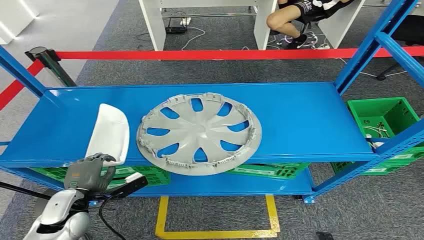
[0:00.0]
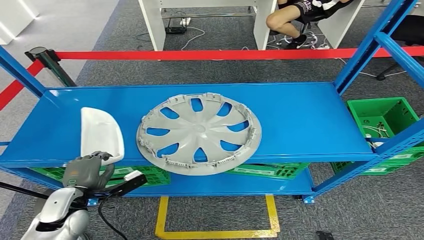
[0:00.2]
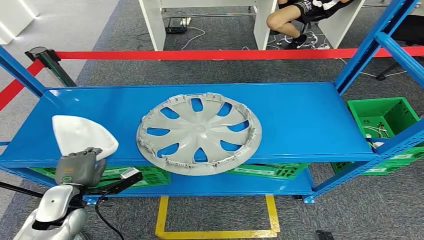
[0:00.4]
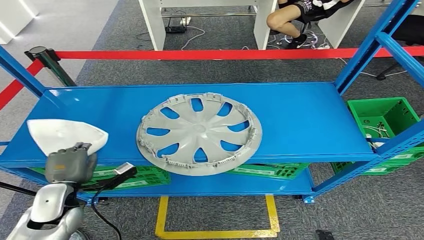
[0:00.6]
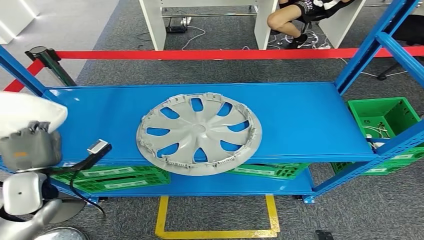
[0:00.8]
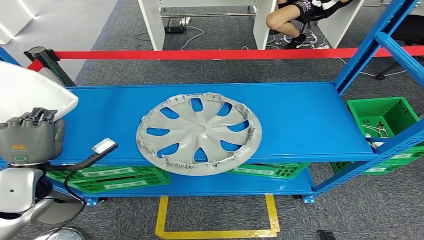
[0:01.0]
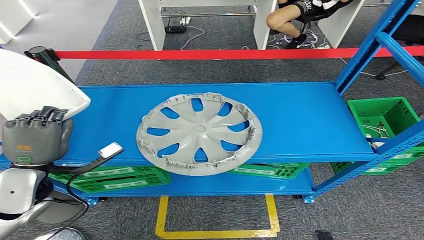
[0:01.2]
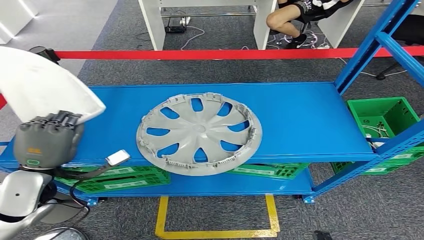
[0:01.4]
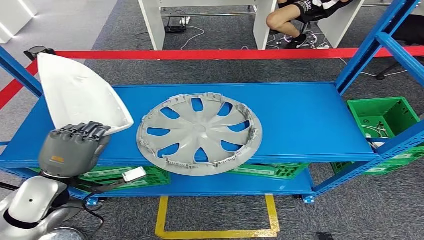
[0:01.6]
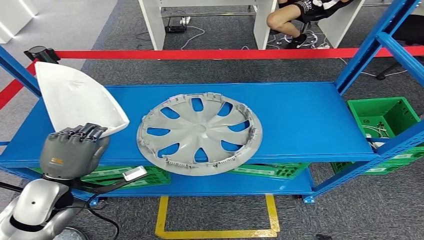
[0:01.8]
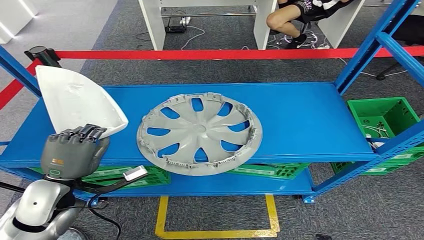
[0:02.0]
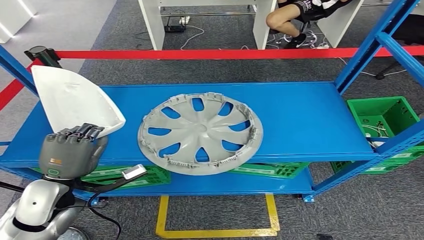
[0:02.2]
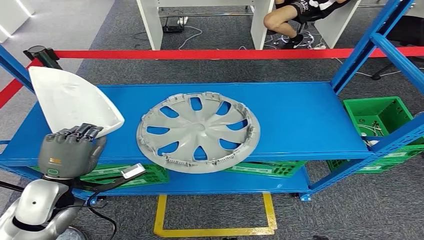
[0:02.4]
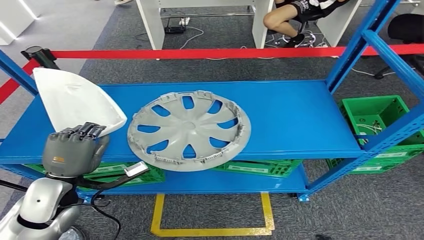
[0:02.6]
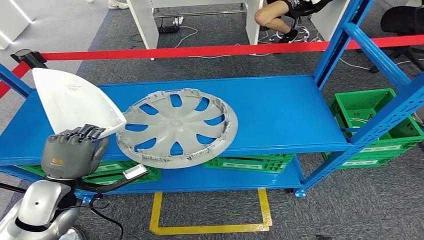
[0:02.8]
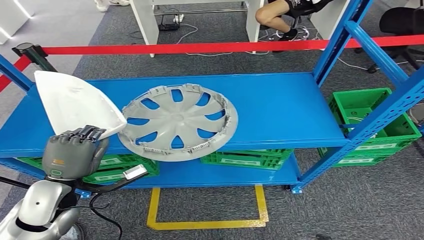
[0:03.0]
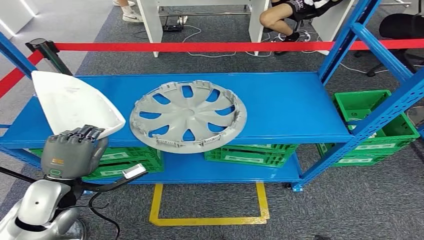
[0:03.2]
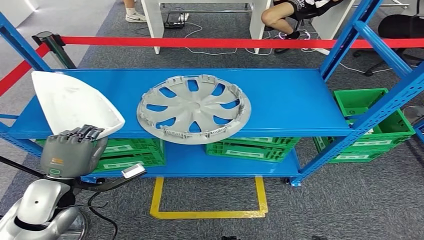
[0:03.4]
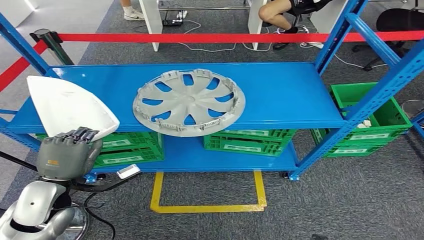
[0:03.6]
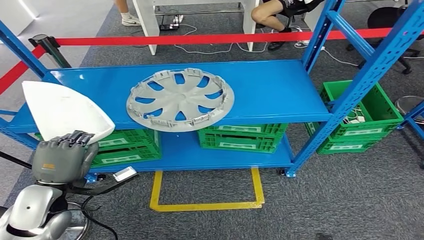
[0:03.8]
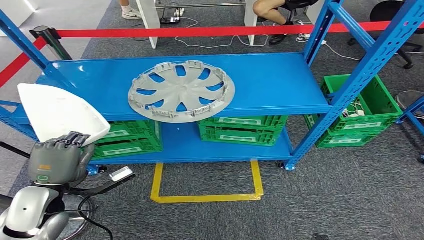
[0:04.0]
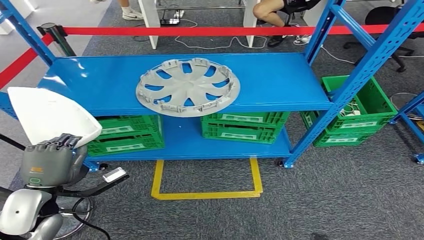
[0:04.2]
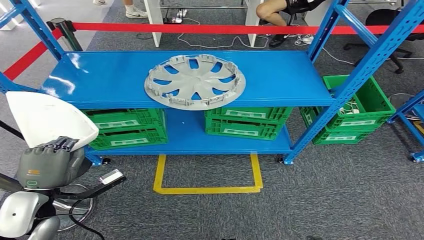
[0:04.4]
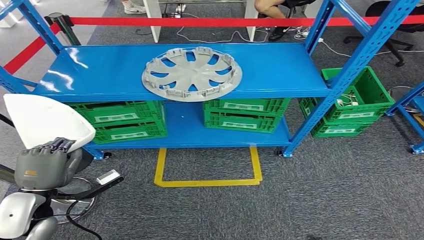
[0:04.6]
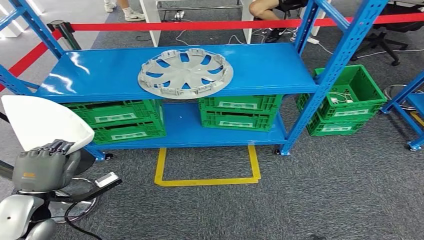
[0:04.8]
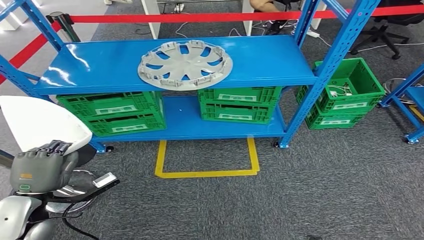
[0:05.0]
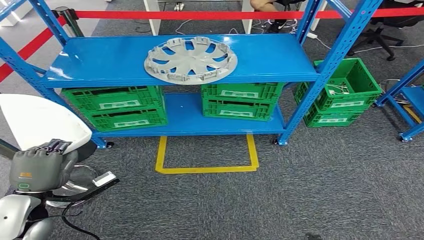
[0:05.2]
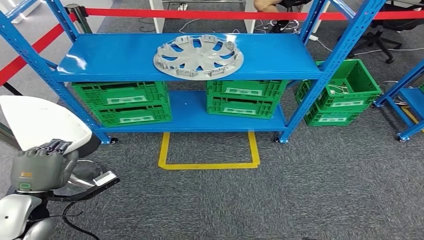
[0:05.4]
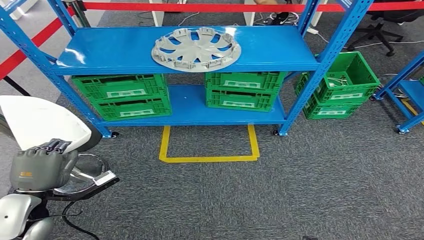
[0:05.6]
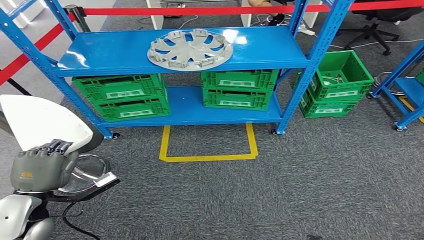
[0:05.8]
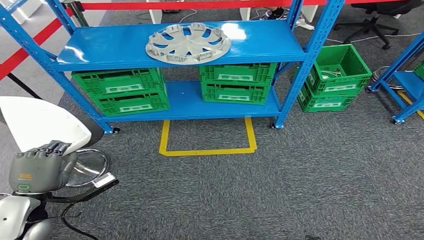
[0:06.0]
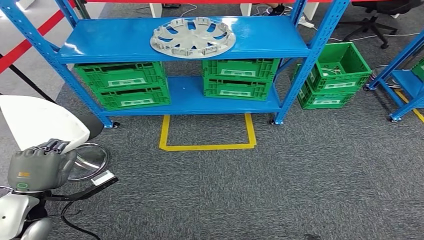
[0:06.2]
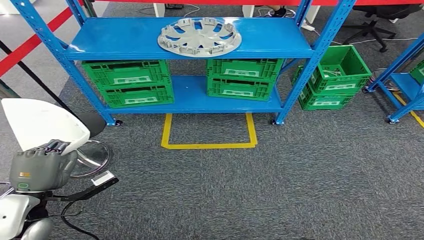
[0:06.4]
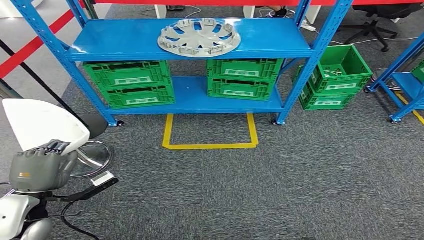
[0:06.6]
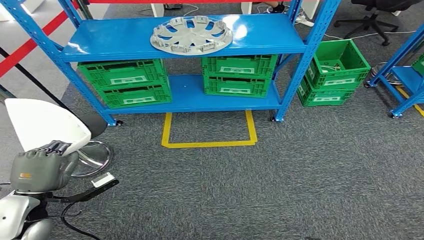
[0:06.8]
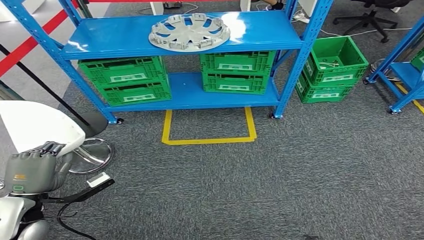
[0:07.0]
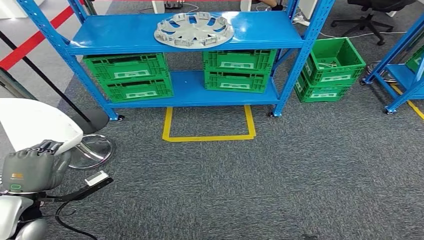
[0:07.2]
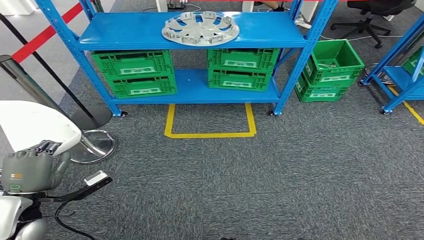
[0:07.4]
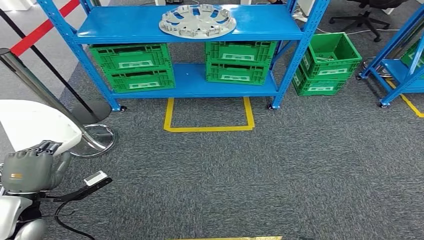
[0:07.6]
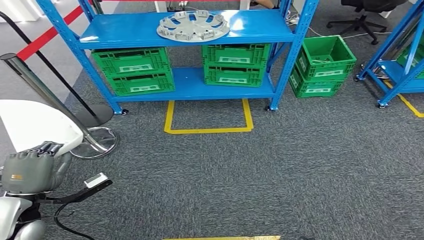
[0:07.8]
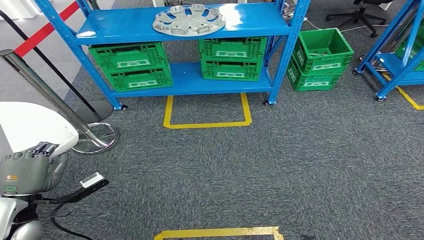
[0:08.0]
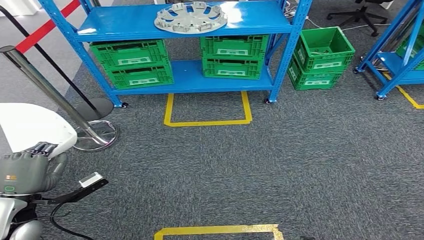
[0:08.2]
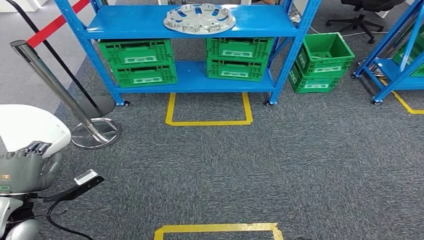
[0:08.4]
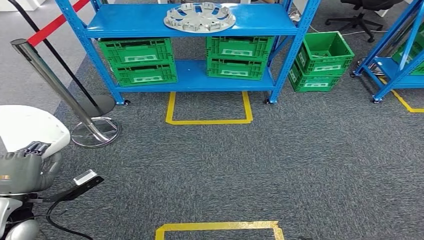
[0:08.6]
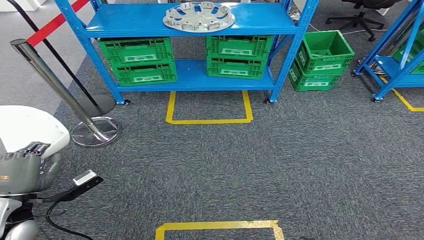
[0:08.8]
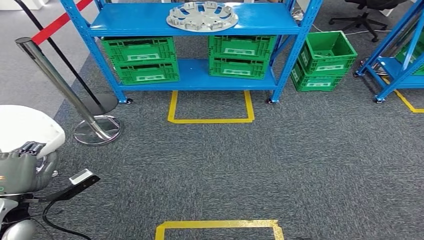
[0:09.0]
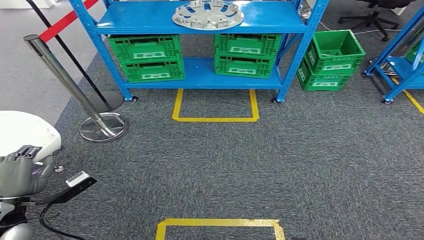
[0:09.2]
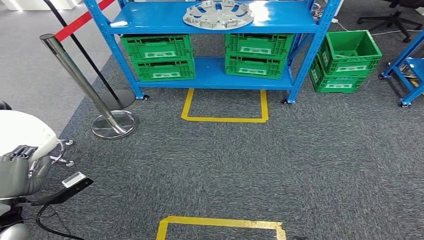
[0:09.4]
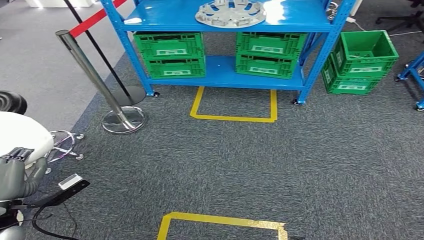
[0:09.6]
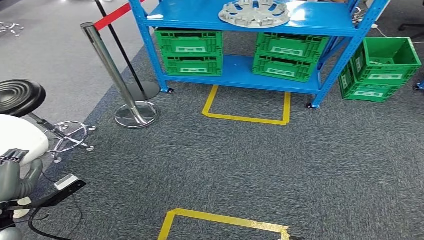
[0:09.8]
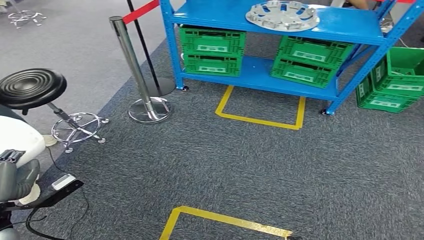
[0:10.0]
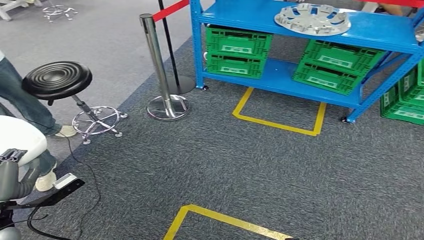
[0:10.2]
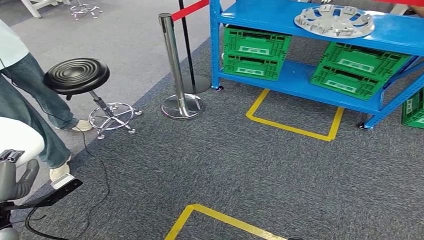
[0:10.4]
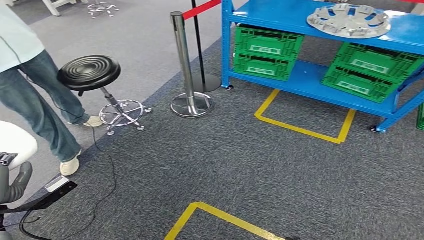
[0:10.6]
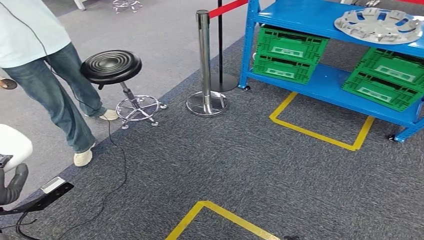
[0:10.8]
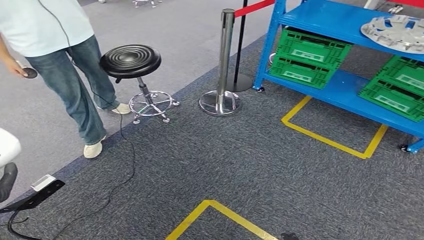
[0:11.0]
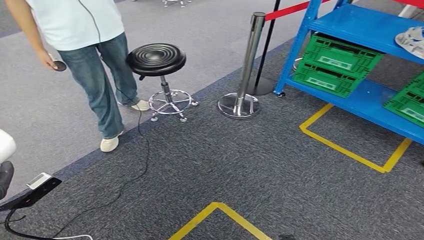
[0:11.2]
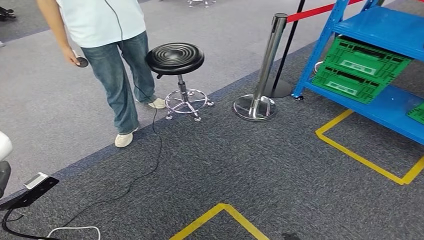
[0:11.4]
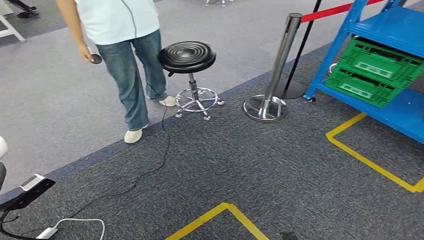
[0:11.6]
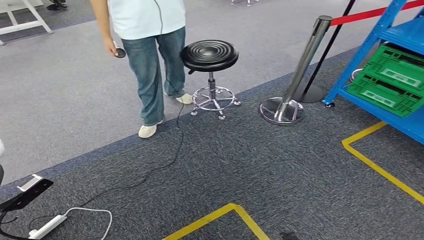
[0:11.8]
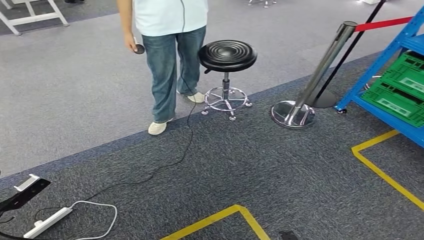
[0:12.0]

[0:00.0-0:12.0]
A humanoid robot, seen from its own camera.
Step, 0:00.0 to 0:03.8: Pick up the small component from the shelf.

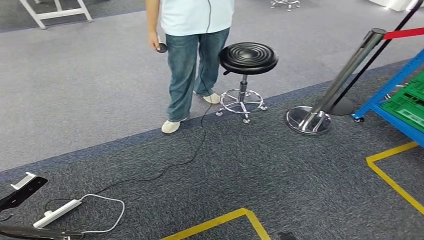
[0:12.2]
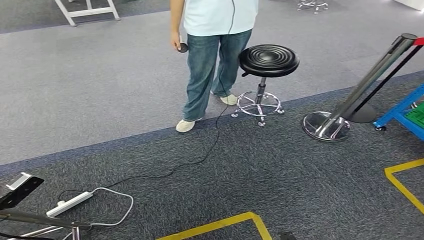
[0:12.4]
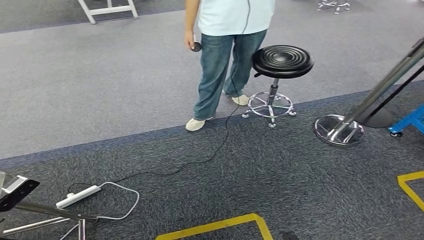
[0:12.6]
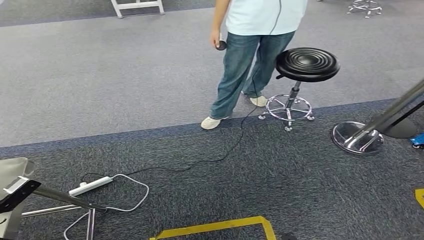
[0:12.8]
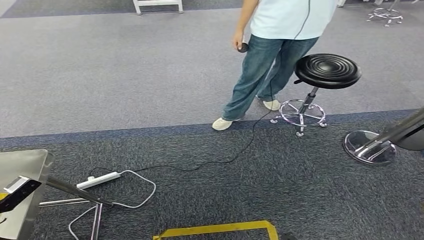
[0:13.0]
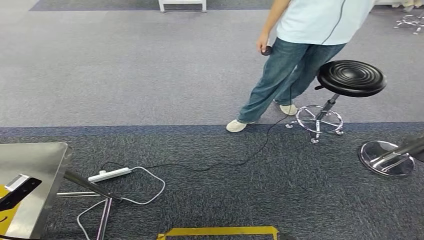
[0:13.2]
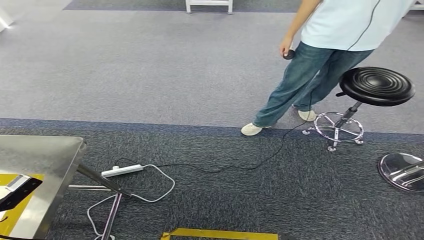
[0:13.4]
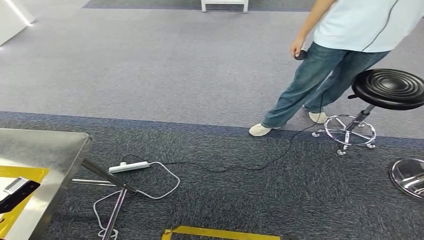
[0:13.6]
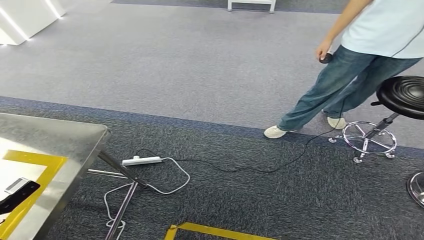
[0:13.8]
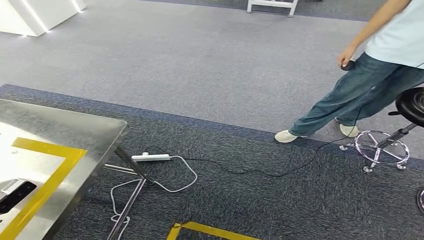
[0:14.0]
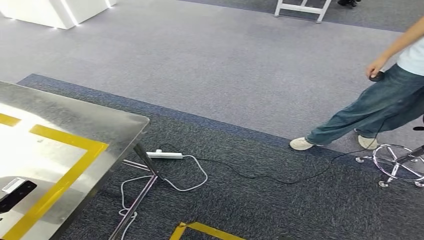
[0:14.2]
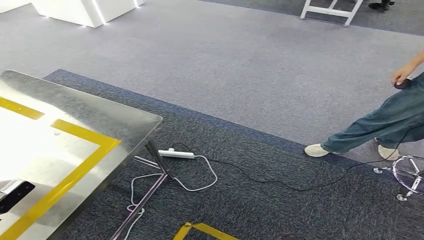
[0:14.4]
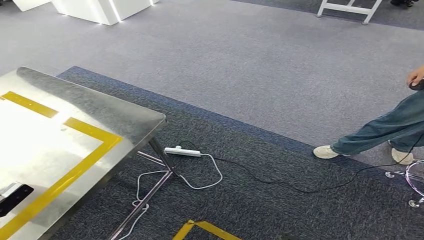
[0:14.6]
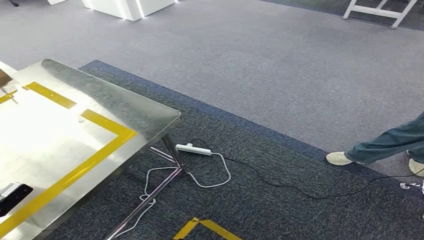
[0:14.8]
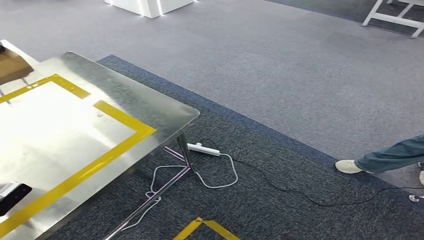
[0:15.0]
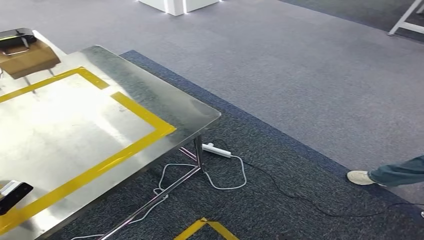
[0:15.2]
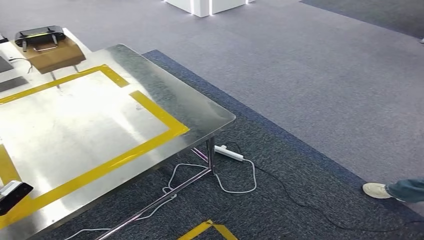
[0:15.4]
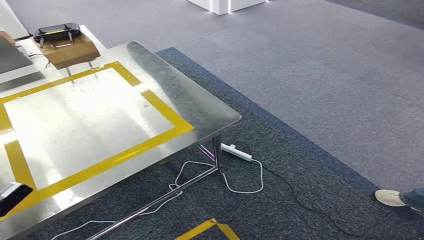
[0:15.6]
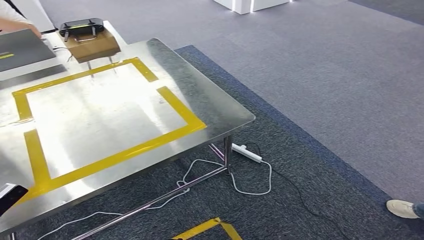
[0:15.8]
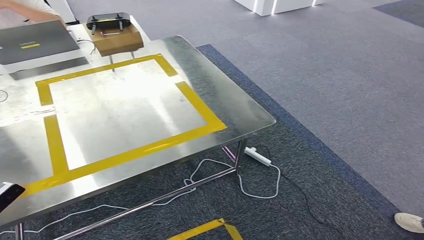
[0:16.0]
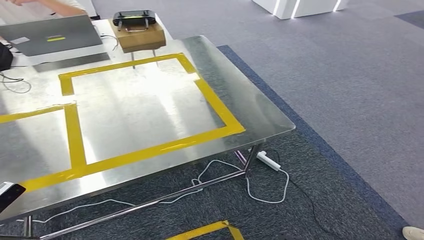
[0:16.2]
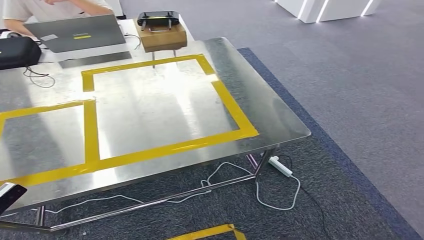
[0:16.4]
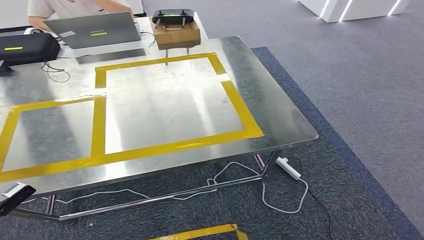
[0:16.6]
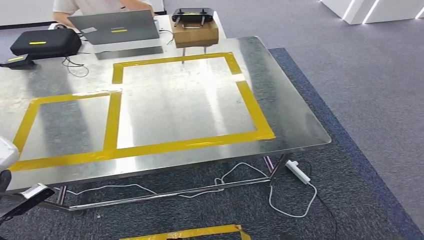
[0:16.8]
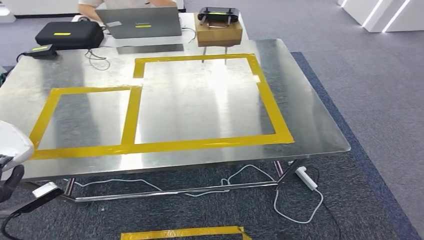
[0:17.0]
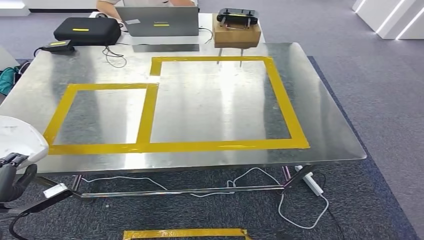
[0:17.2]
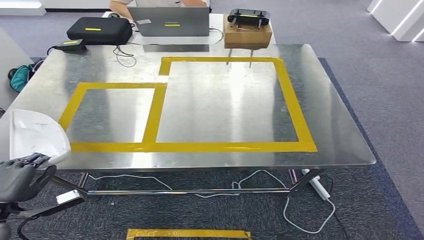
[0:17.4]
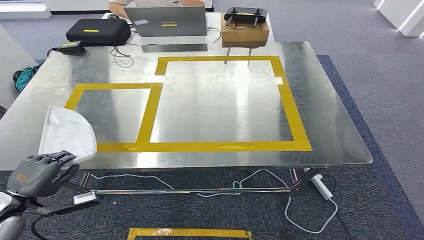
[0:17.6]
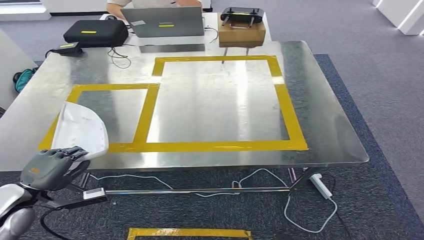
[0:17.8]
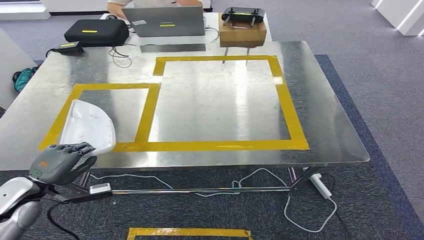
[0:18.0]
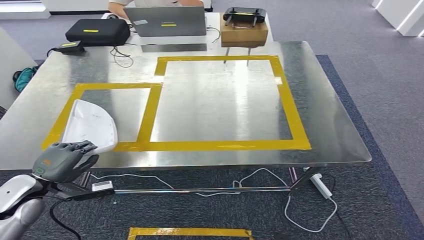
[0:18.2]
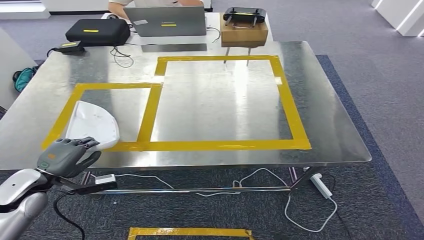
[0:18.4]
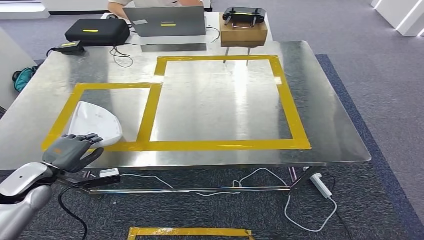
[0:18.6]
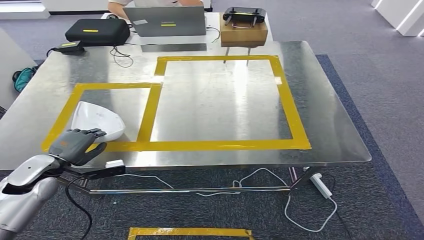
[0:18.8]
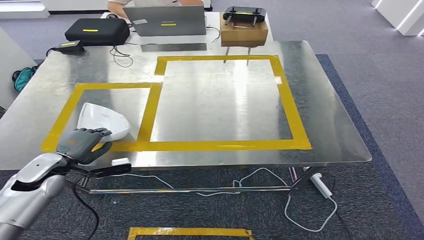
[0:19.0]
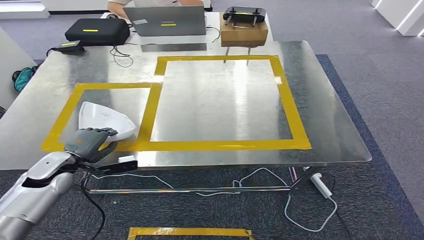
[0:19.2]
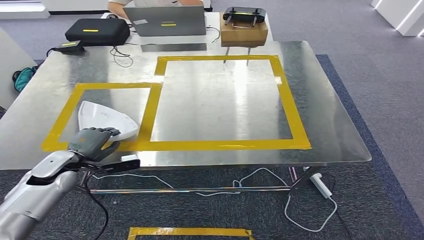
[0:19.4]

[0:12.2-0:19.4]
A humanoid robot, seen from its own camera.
Step, 0:12.2 to 0:16.2: Move the small component to the workbench.
0:18.0 to 0:19.4: The left hand travels forward by about 10 cm.
